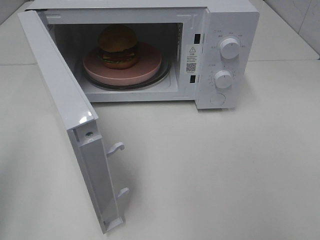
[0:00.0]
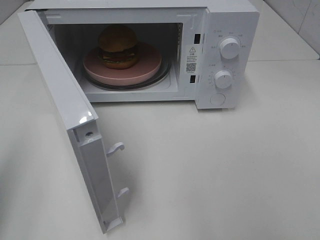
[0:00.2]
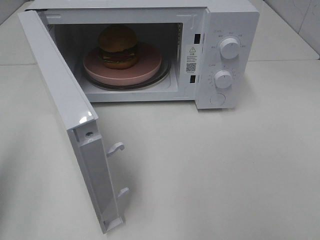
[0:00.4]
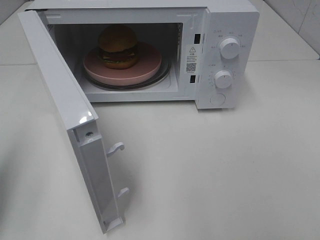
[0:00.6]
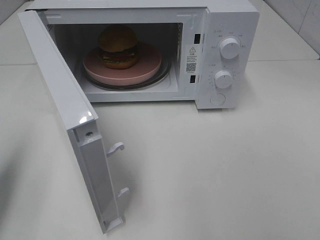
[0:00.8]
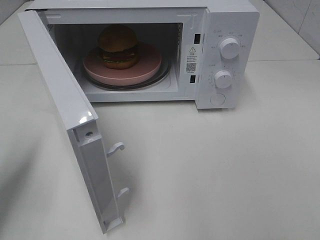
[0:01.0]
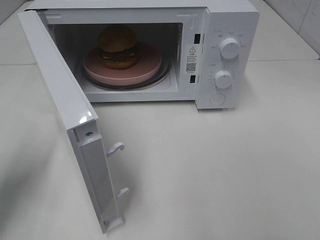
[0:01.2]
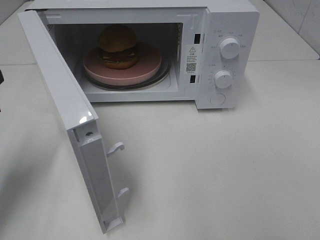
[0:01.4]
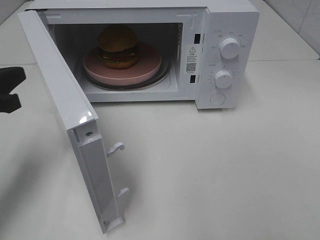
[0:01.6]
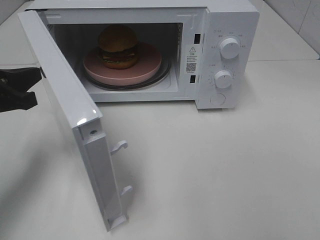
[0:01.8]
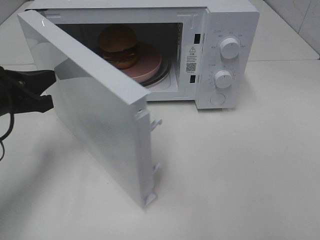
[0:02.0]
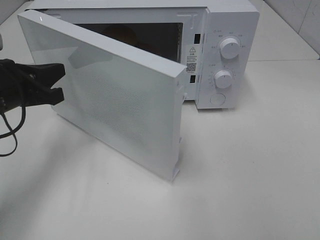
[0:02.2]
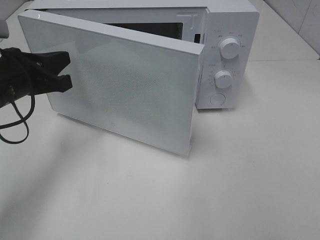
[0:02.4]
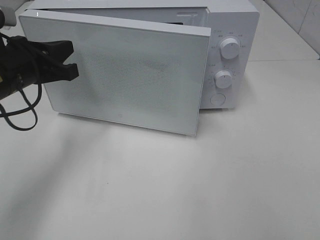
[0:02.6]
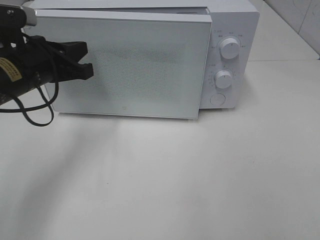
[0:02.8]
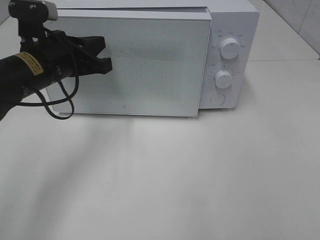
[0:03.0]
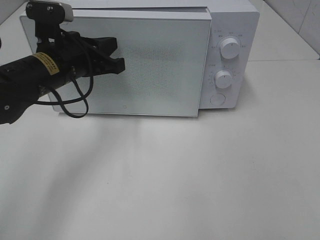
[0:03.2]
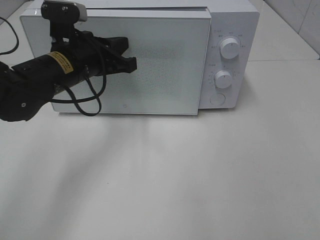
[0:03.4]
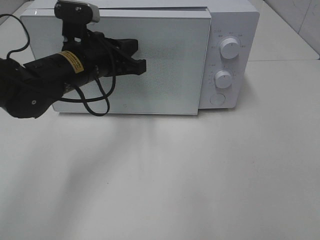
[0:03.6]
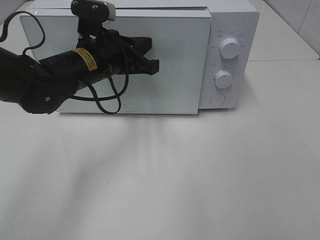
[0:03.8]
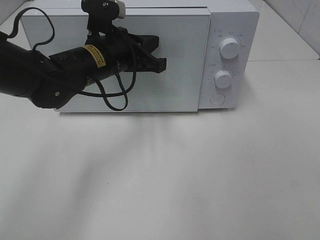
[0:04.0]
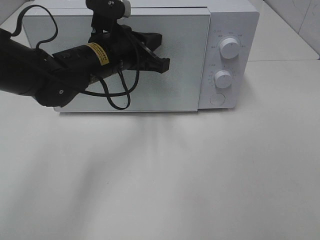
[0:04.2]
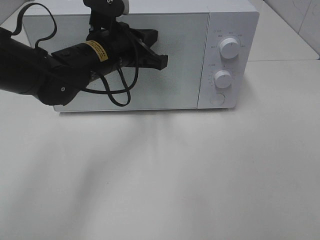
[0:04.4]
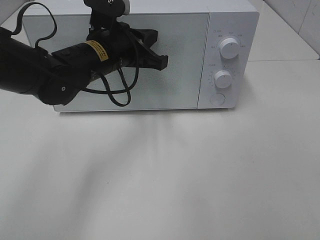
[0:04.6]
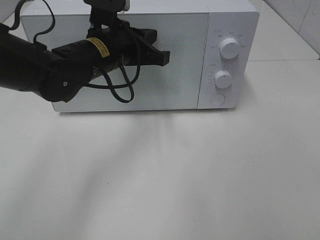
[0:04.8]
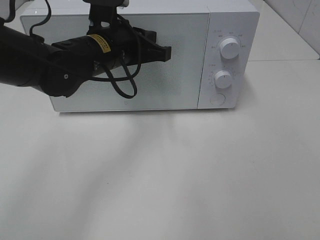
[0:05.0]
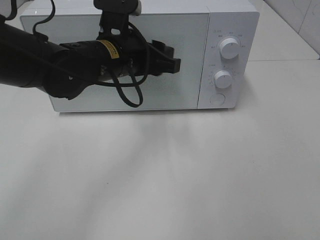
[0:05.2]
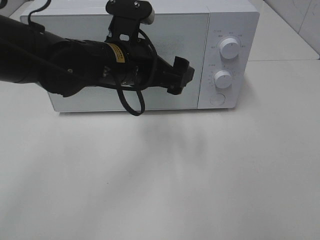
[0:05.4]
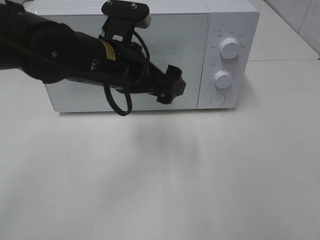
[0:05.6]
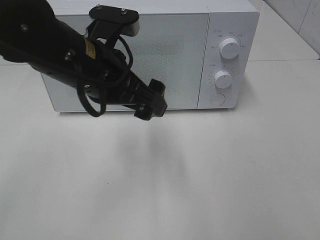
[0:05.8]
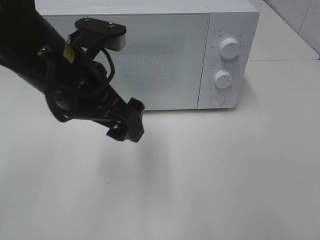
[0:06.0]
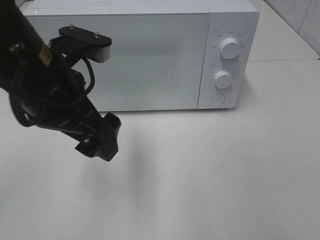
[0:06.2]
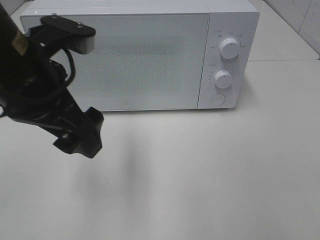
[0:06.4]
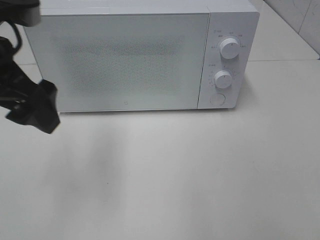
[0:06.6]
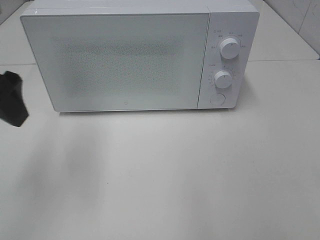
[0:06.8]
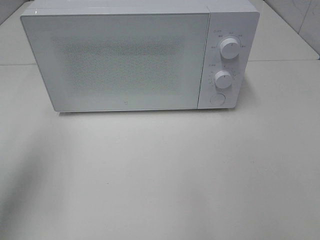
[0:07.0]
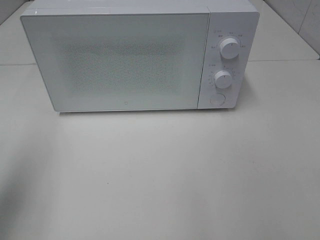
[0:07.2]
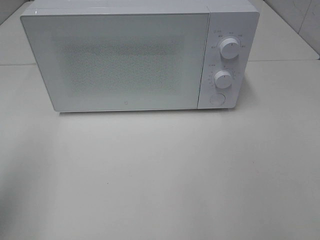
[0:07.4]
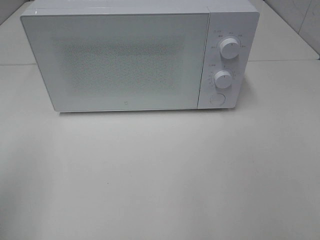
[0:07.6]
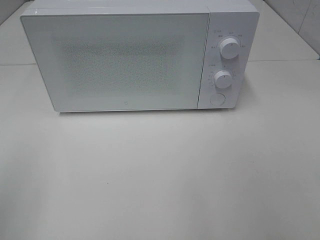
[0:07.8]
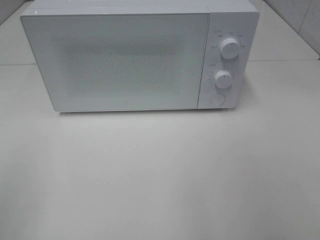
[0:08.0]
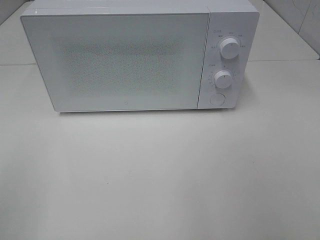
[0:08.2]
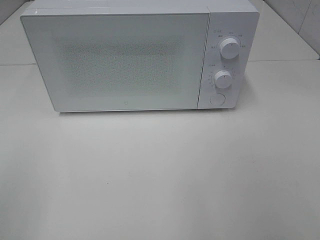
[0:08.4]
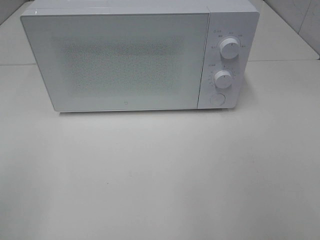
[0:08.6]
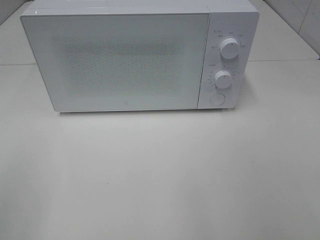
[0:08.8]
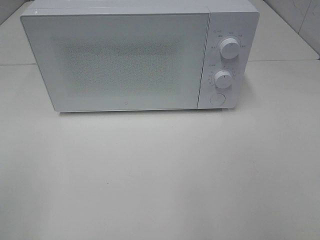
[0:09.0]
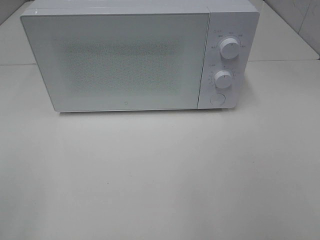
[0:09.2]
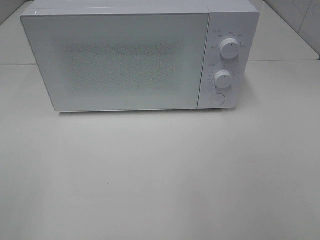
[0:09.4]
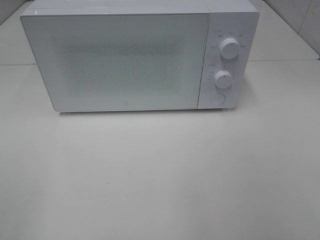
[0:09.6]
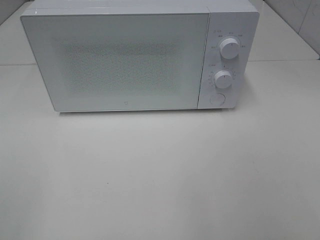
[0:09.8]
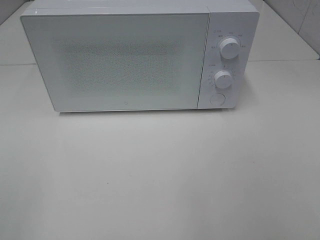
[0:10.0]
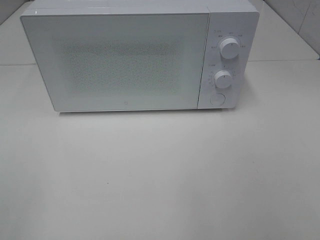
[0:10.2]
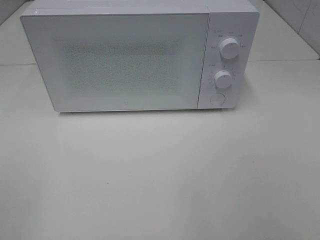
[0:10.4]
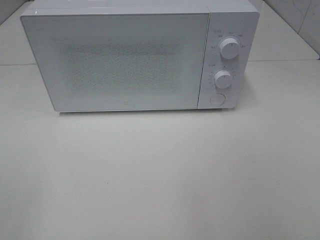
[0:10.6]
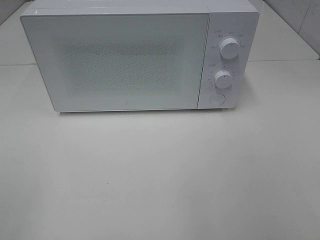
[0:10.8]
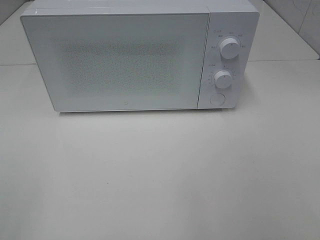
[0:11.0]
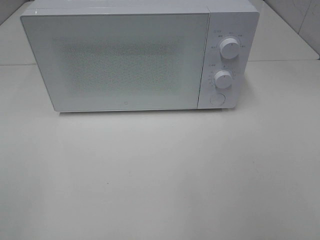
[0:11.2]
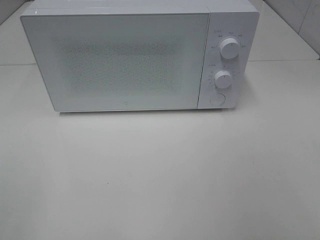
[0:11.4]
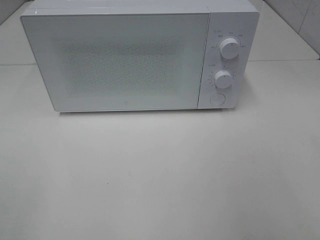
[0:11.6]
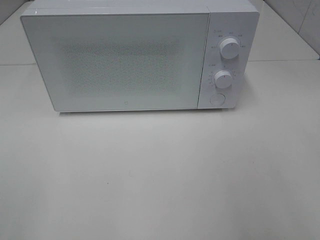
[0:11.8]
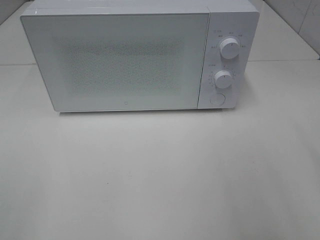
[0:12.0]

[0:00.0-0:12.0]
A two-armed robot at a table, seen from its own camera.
Task of the whole recording: Heat the burger.
Step, 0:00.0 to 0:04.4: Left hand: close the microwave door.
0:00.0 to 0:01.6: The left gripper is displaced forward and downward by roughly 20 cm.
0:01.6 to 0:03.0: The left gripper goes approximately 15 cm to the right and forward.
0:03.0 to 0:04.4: The left gripper travels to the right by roughly 10 cm.
0:04.4 to 0:06.0: The left gripper goes about 15 cm backward and upward, and opens.
0:06.0 to 0:07.6: The left gripper heads to the left and backward, covering approximately 25 cm.

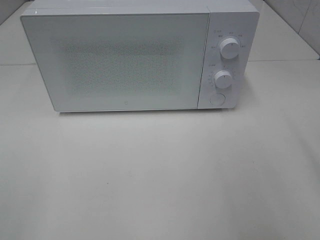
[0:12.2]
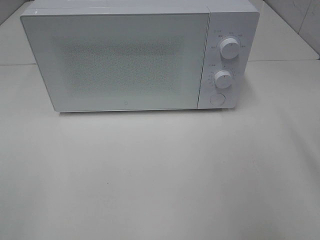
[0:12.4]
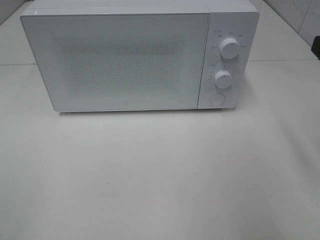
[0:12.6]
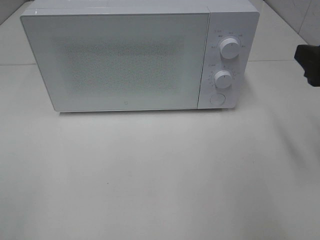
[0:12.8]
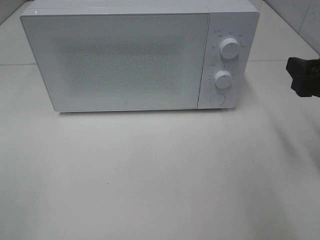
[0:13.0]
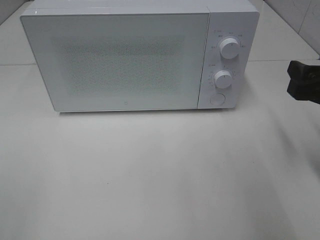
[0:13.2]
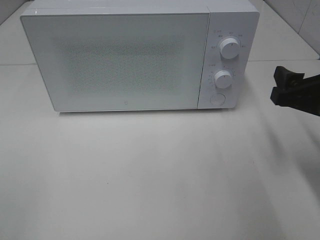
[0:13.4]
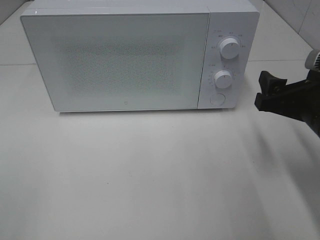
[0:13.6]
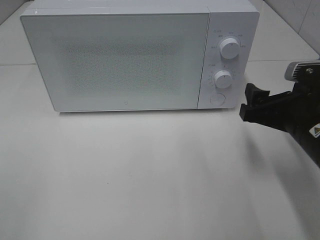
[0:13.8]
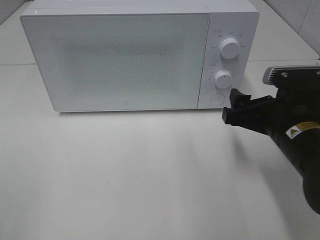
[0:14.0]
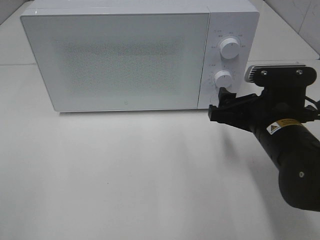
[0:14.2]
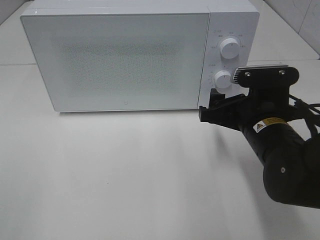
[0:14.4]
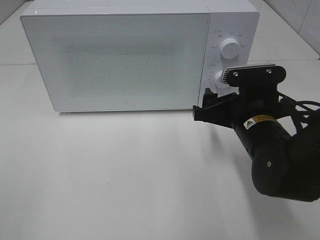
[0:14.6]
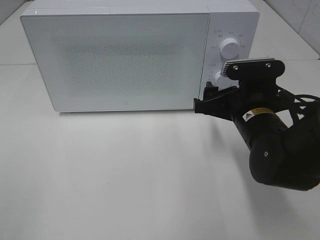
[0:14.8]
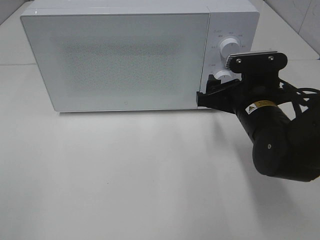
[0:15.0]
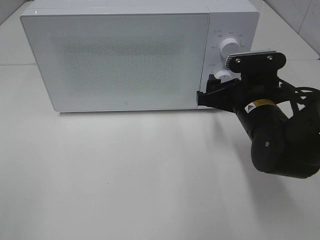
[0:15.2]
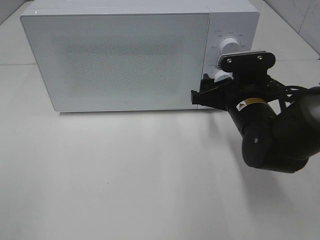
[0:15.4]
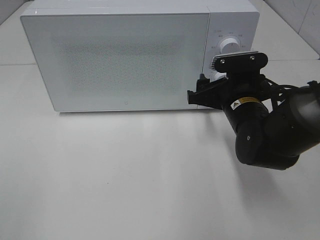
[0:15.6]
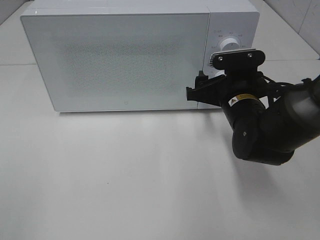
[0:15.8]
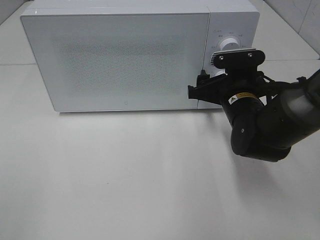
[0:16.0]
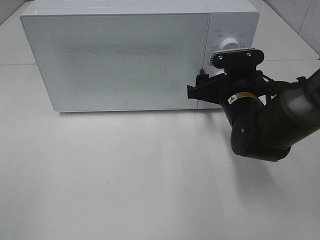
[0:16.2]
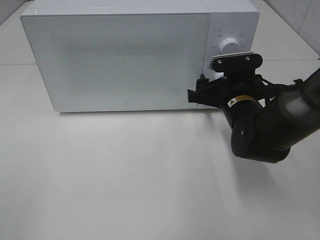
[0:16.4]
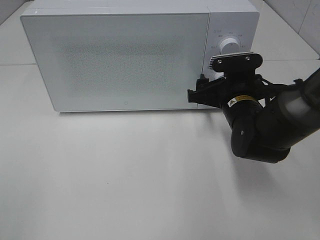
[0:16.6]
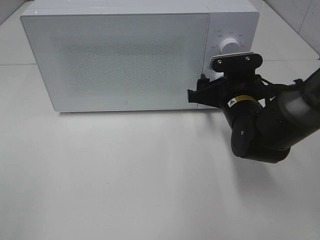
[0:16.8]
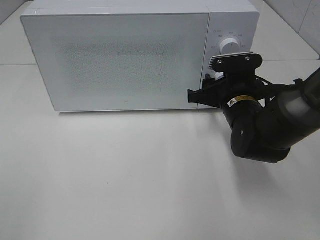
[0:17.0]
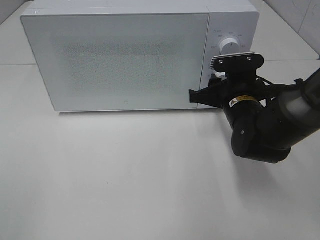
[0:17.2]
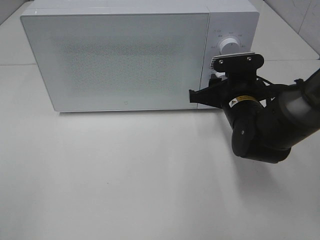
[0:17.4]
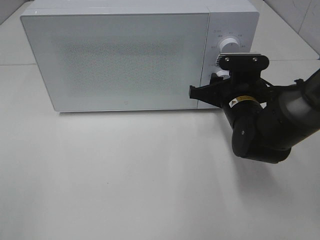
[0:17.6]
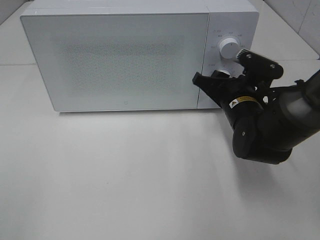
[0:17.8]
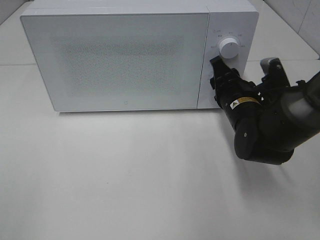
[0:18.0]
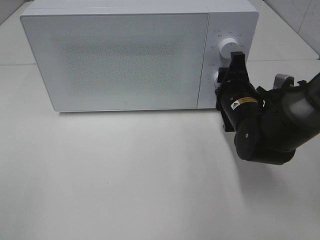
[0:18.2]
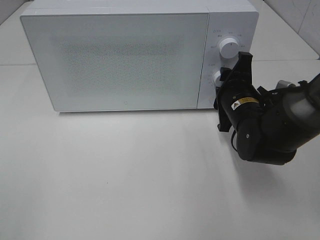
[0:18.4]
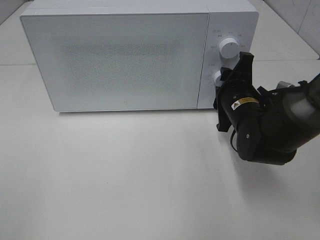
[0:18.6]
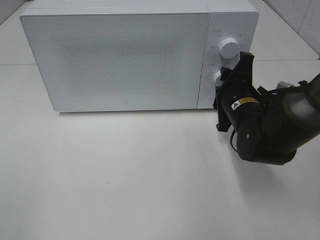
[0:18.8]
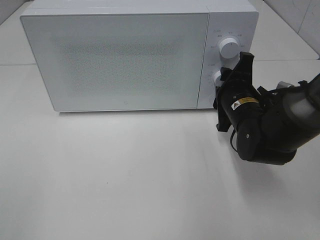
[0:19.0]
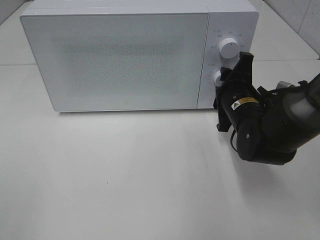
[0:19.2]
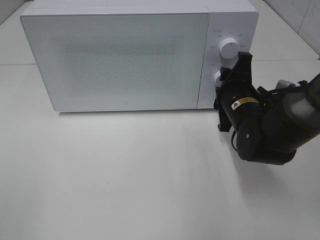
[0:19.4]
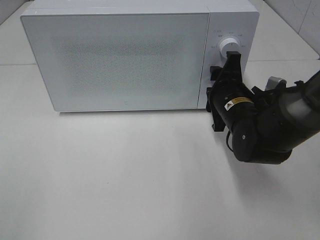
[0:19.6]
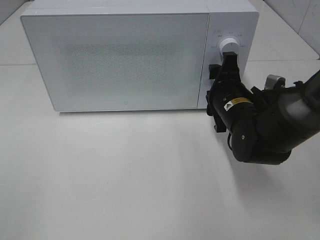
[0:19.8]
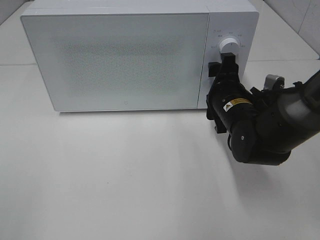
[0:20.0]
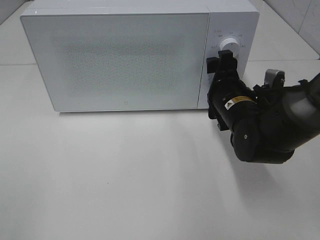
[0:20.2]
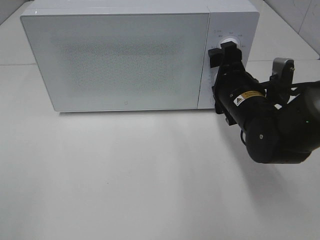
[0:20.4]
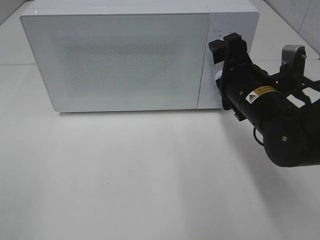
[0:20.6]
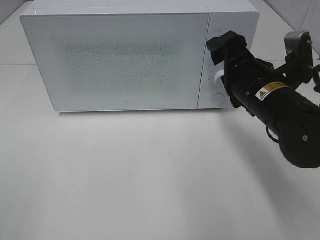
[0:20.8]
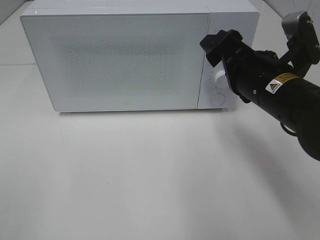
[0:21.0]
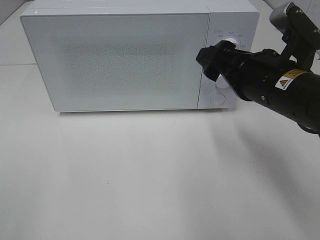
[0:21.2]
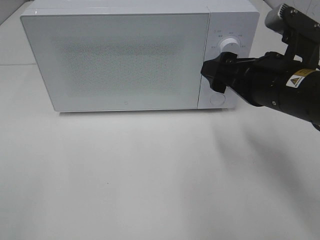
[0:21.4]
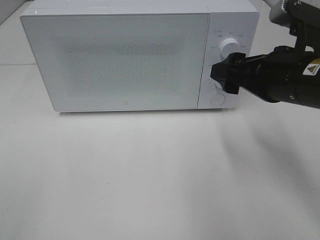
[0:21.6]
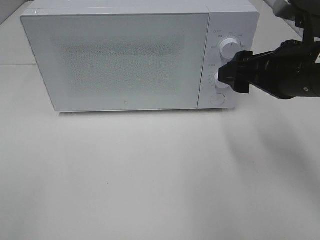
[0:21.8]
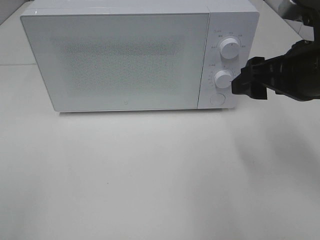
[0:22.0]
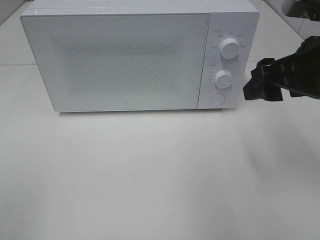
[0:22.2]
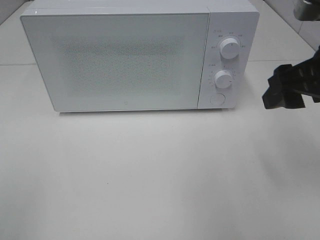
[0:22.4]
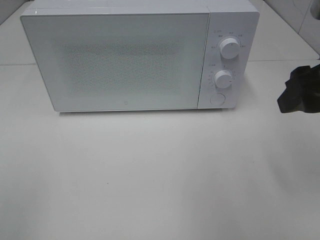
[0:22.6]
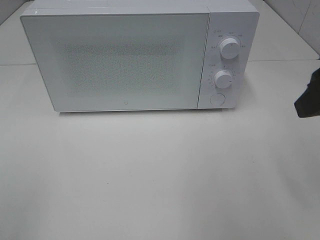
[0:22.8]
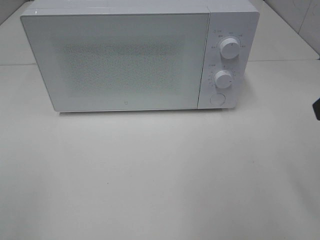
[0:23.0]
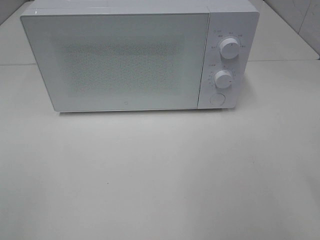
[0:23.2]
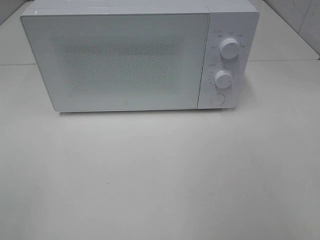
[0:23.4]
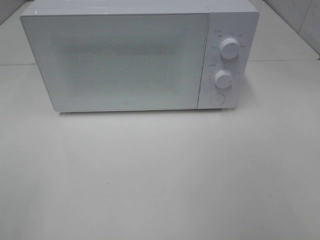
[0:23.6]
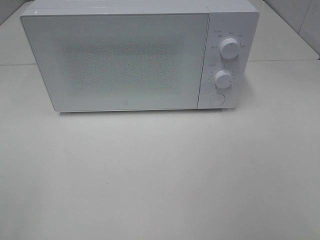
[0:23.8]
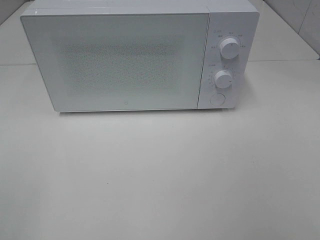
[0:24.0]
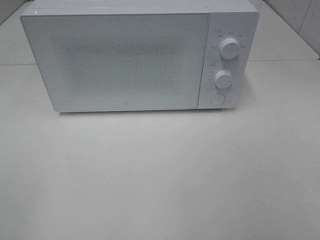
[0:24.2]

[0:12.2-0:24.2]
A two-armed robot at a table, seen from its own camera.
Task of the whole recording: Heat the burger.
Step, 0:12.2 to 0:19.6: Right hand: twist timer button.
0:12.2 to 0:13.8: The right gripper heads downward, forward and to the left, covering about 15 cm.
0:13.8 to 0:15.2: The right gripper heads forward and to the left, covering roughly 10 cm.
0:15.2 to 0:16.6: The grippers stay close to where they were, moving slightly.
0:16.6 to 0:18.2: The right gripper closes.
0:18.2 to 0:19.8: There are only small adjustments of the grippers.
0:19.8 to 0:21.2: The right gripper goes about 10 cm upward and backward.
0:21.2 to 0:22.6: The right gripper is displaced upward and to the right by about 10 cm.
0:22.6 to 0:24.2: The right gripper heads backward, covering roughly 20 cm.
